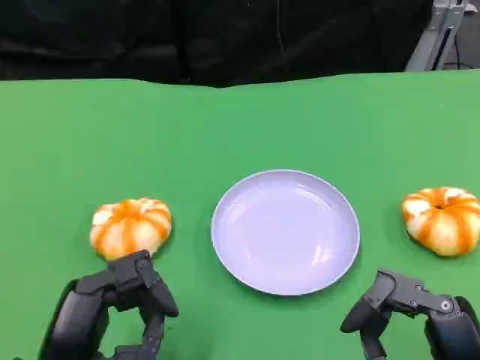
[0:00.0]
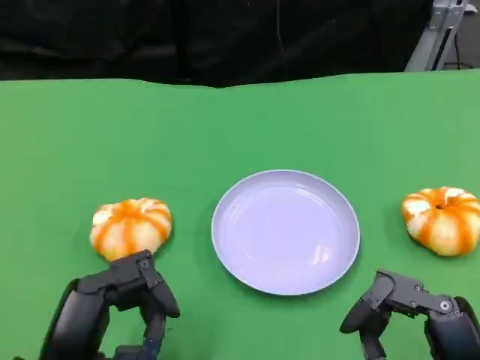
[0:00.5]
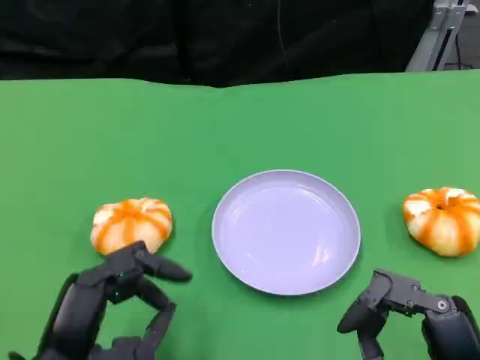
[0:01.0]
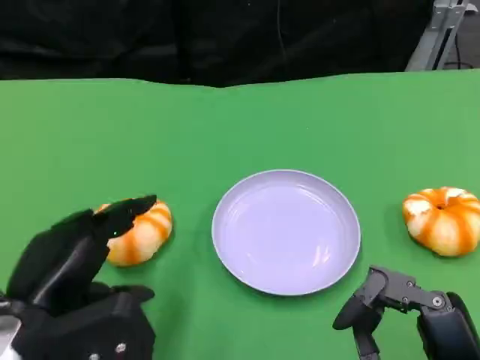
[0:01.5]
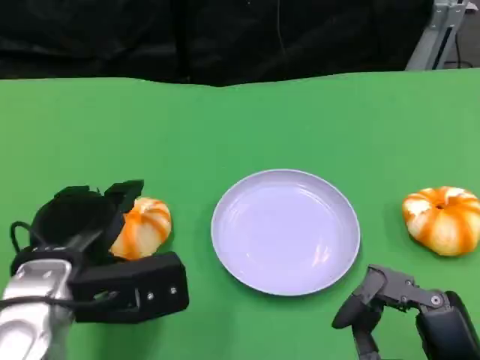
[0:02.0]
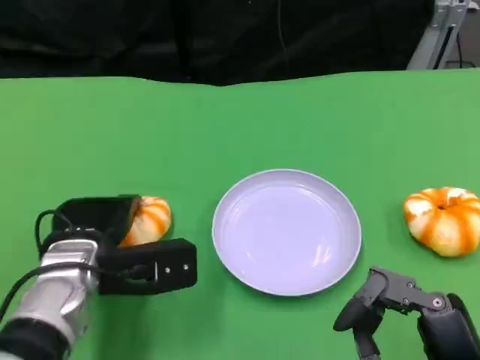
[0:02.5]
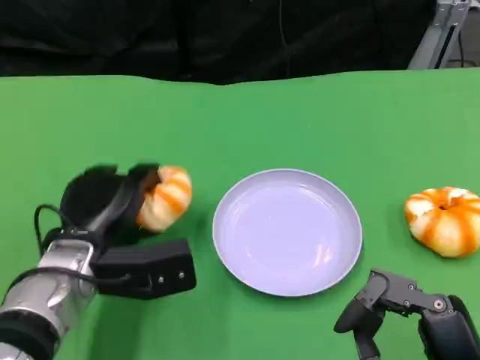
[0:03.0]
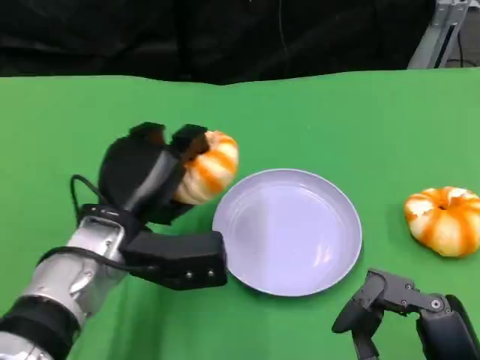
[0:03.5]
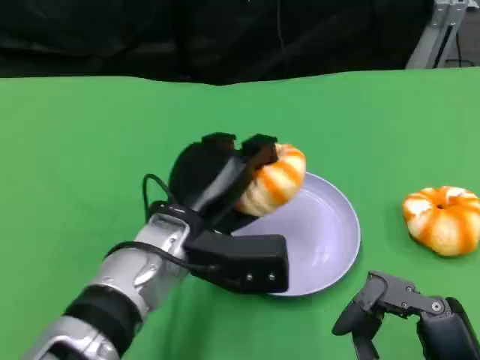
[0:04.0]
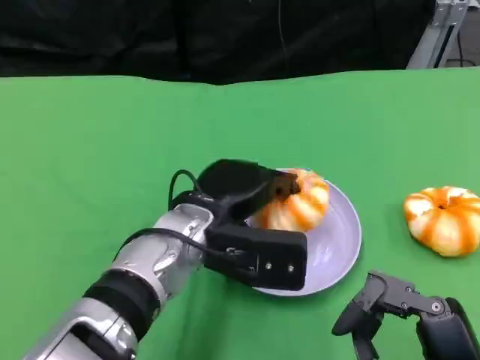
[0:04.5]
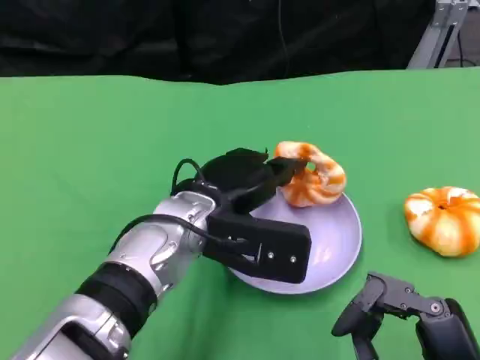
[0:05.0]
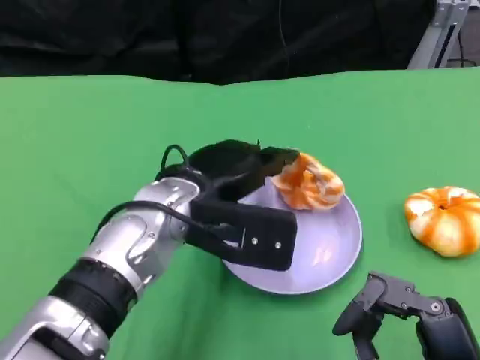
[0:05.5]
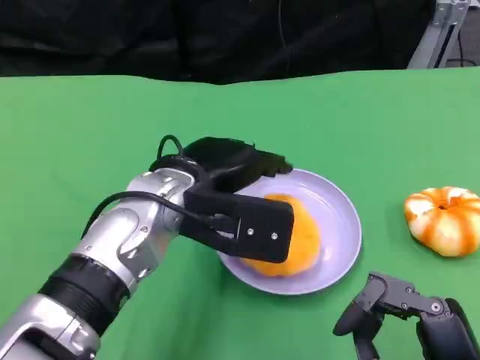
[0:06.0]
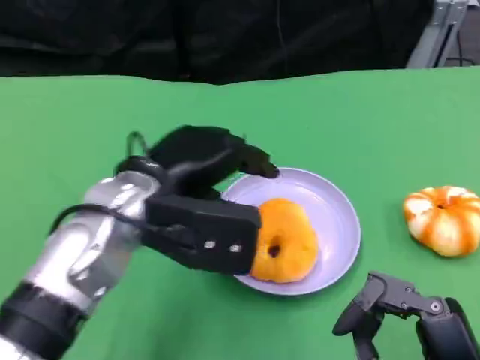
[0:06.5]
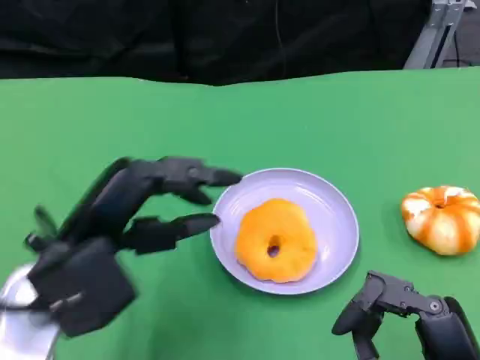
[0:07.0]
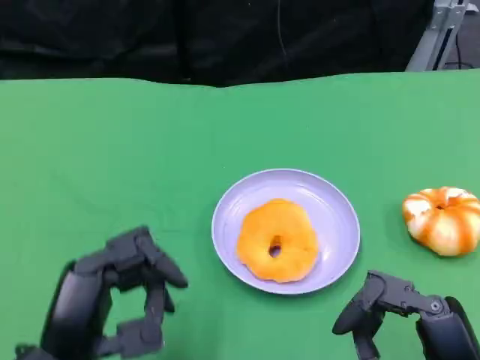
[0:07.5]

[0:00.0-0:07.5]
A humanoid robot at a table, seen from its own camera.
Task of the whole recording: Grasp the bread from the table and place it into the plate.
0:00.0 to 0:02.0: The left hand moves forward, some 10 cm.
0:02.0 to 0:04.0: The left hand heads to the right, covering roughly 10 cm.
0:04.0 to 0:05.5: The left hand moves approximately 5 cm.
0:05.5 to 0:07.5: The left hand is displaced backward and to the left by some 20 cm.

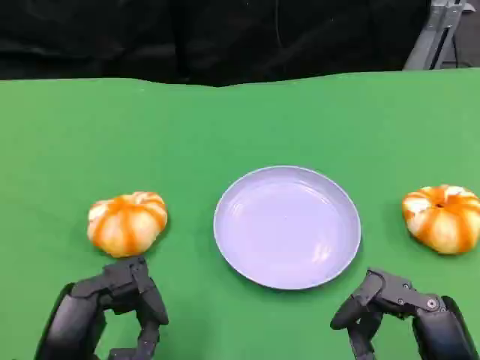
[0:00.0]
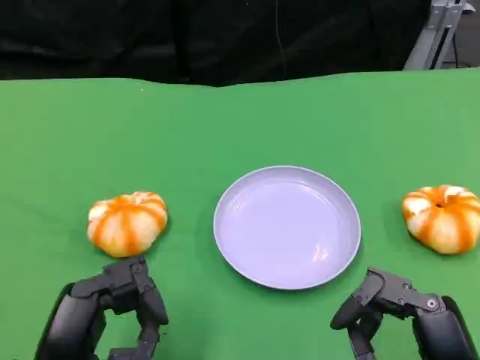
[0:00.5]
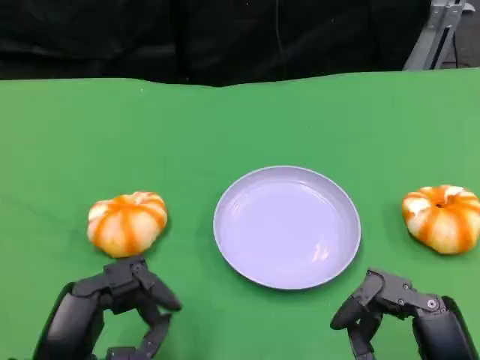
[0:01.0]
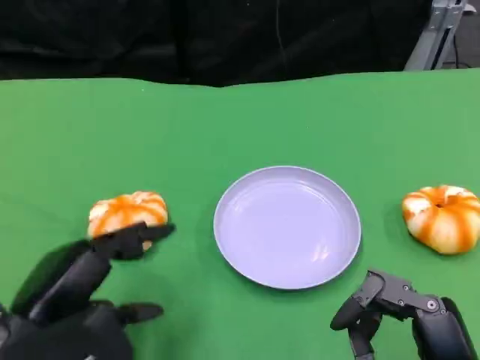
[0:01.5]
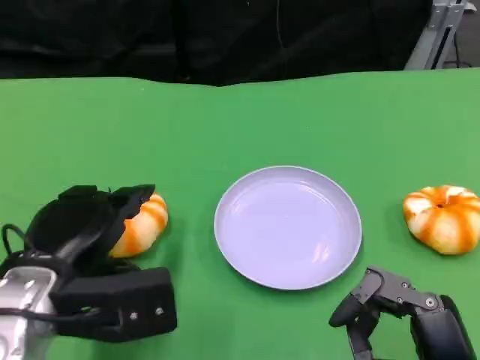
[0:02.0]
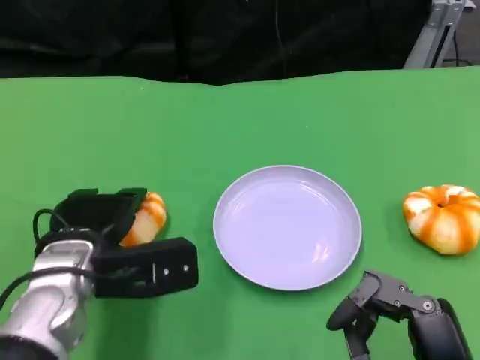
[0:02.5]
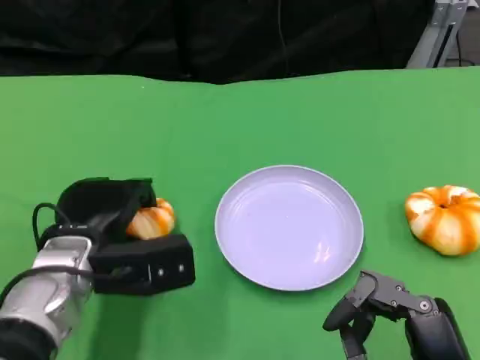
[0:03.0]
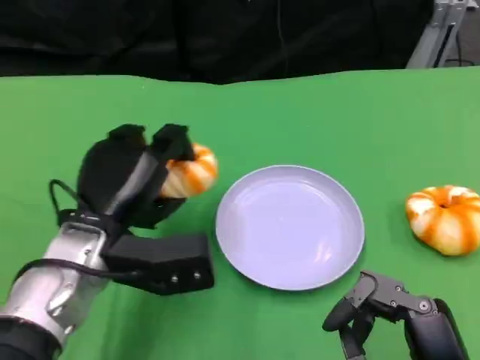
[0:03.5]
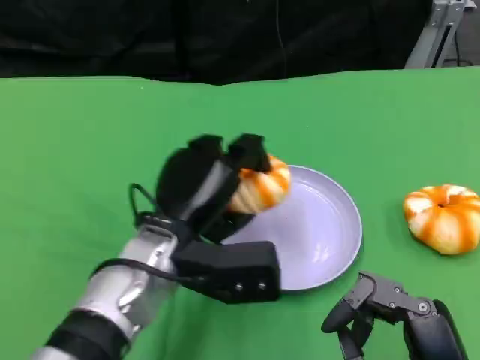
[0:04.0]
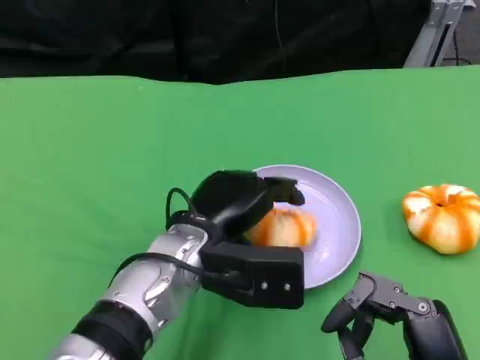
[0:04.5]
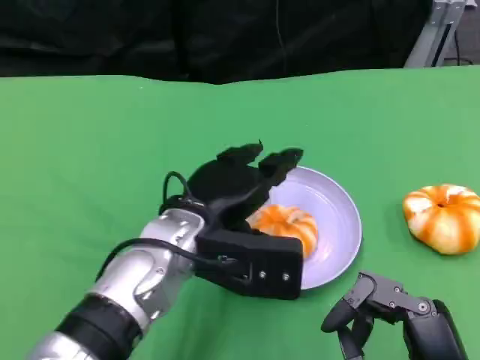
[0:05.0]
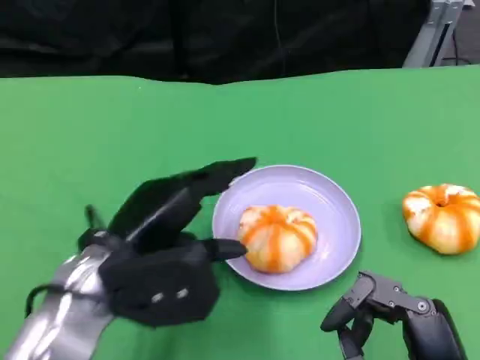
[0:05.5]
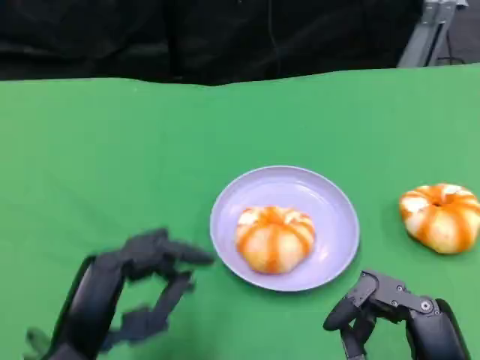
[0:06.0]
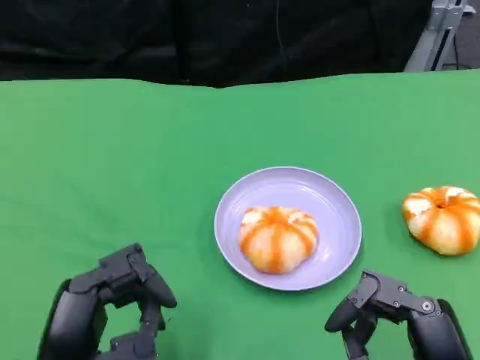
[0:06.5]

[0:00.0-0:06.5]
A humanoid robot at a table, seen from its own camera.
Task of the whole recording: Grasp the bread from the table and place it into the plate.
0:00.0 to 0:02.0: The left hand shifts some 10 cm forward.
0:02.0 to 0:04.5: The left hand travels to the right by some 15 cm.
0:04.5 to 0:06.5: The left hand is displaced backward and to the left by roughly 20 cm.

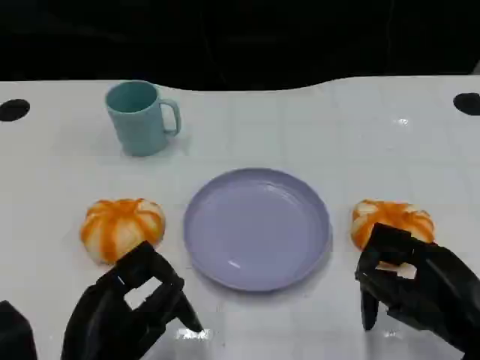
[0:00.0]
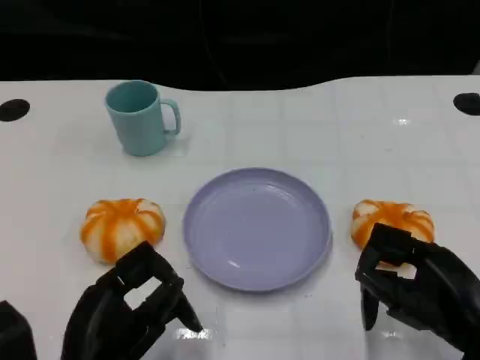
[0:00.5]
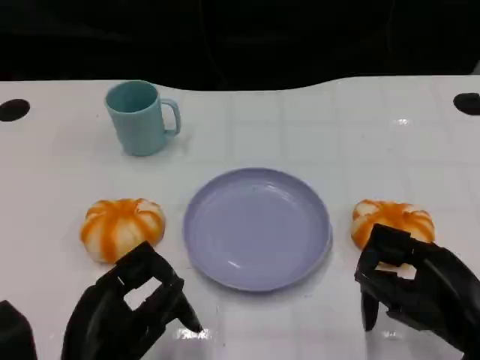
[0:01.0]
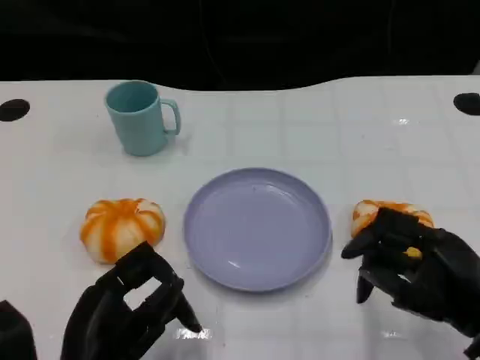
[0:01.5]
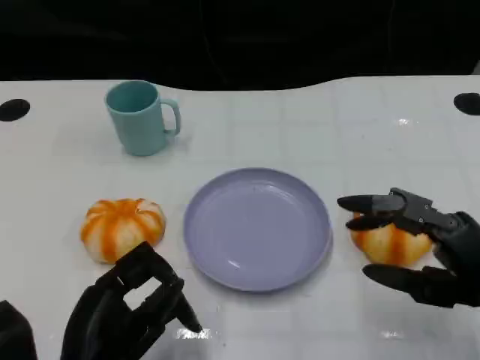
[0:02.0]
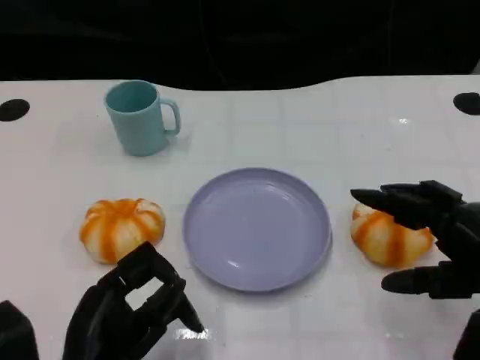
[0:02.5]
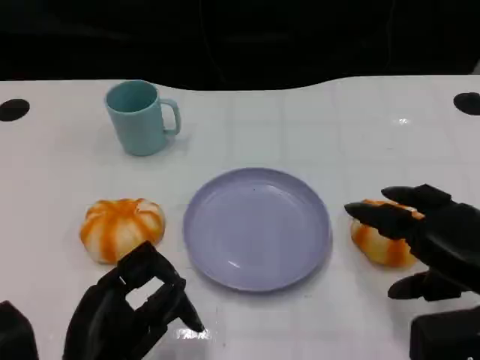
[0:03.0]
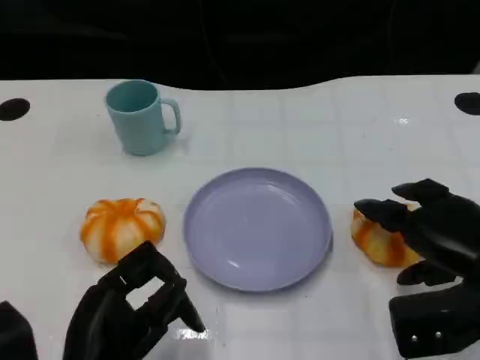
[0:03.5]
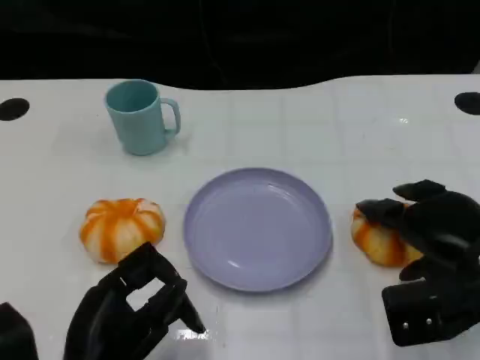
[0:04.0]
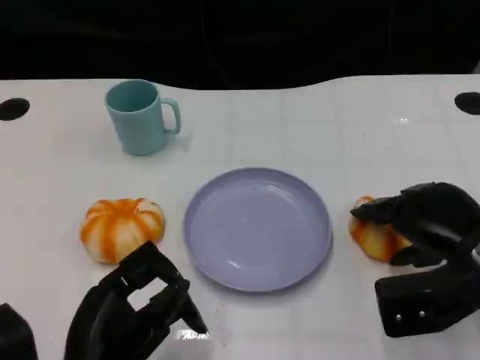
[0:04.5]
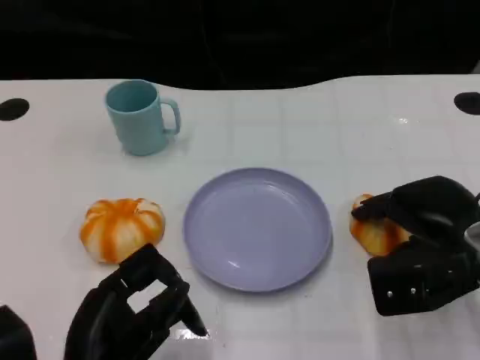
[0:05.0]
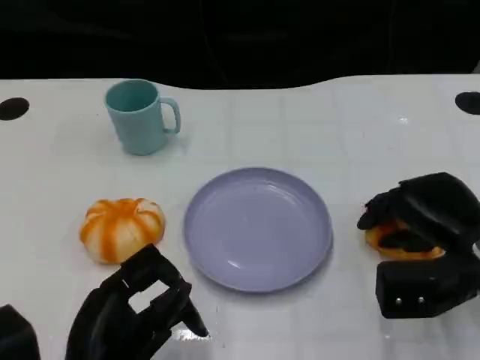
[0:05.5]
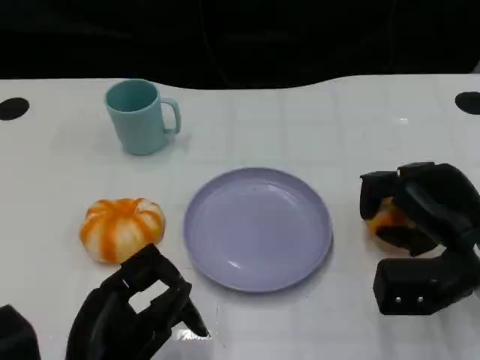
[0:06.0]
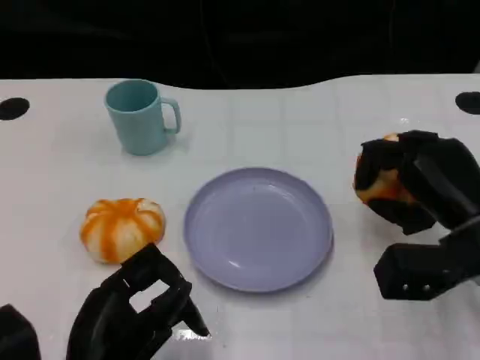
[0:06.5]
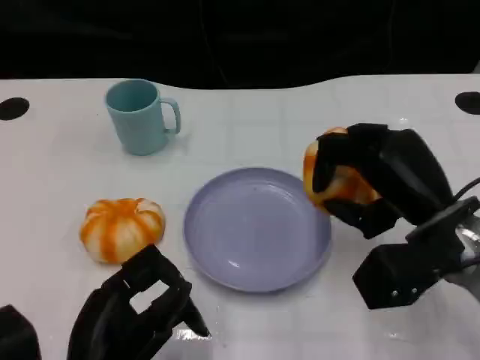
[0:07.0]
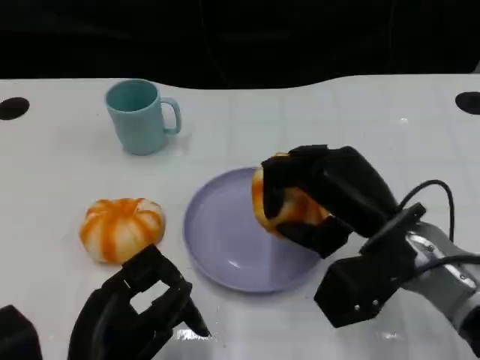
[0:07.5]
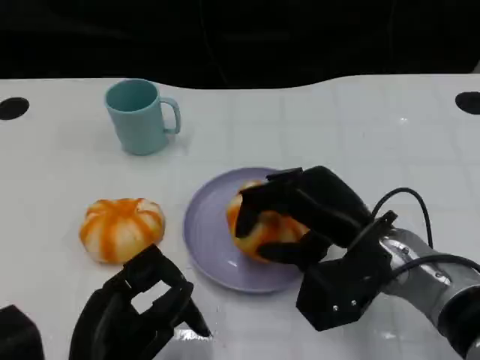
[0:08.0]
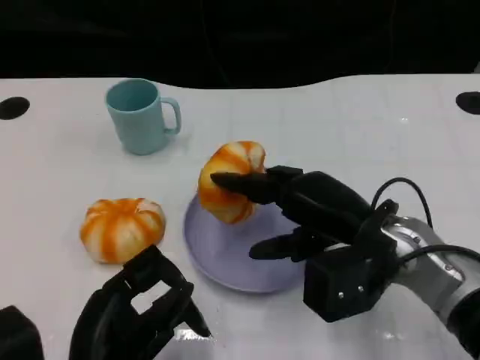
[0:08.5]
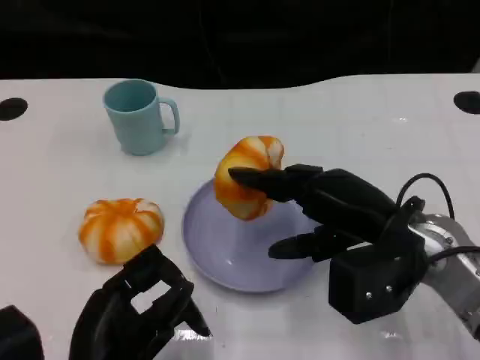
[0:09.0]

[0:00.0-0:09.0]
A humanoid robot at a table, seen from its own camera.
Task of the whole recording: Grasp the bread from the table and place it into the plate.
0:02.0 to 0:04.5: The right hand is displaced forward by roughly 5 cm.
0:04.5 to 0:07.0: The right hand shifts by approximately 5 cm.

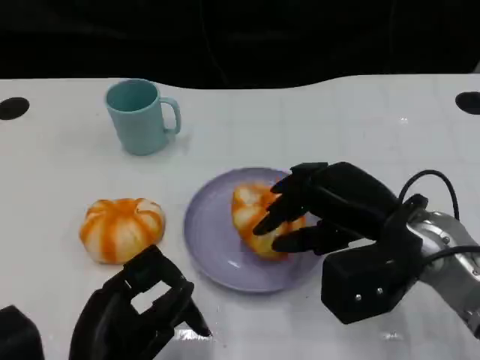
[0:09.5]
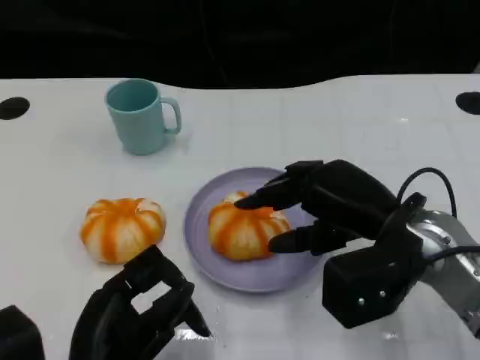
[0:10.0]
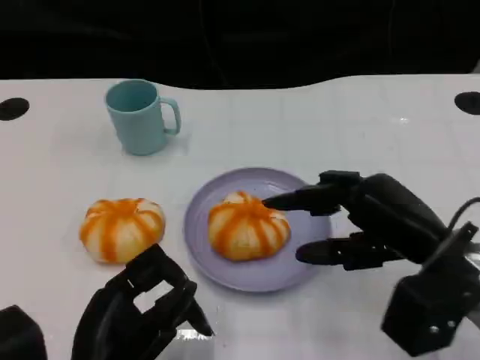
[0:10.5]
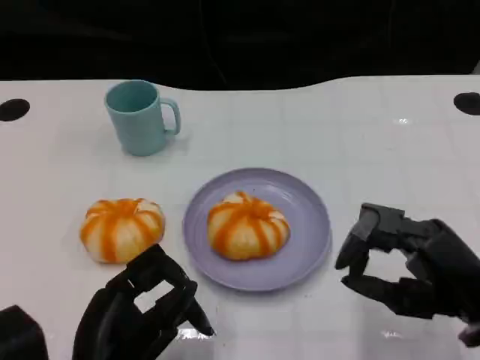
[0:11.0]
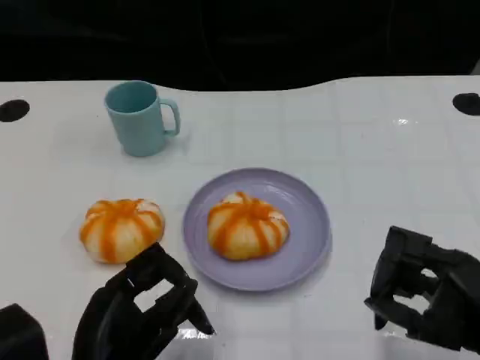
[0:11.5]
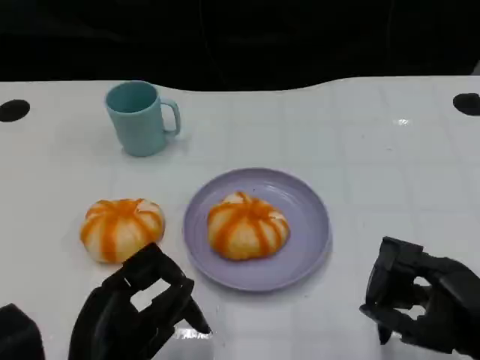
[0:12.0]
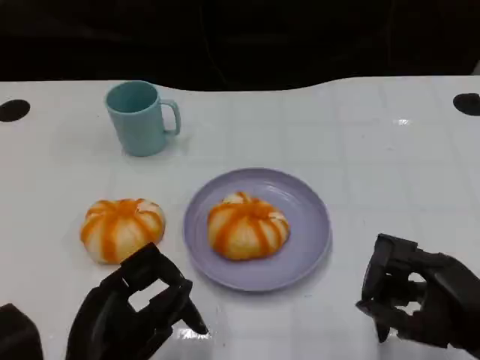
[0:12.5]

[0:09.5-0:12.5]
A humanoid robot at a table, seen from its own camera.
Task of the whole recording: Grasp the bread from the table and place it into the plate.
0:09.5 to 0:11.0: The right hand shifts roughly 10 cm backward and to the right.
0:11.0 to 0:12.5: There are only small adjustments of the hands.
